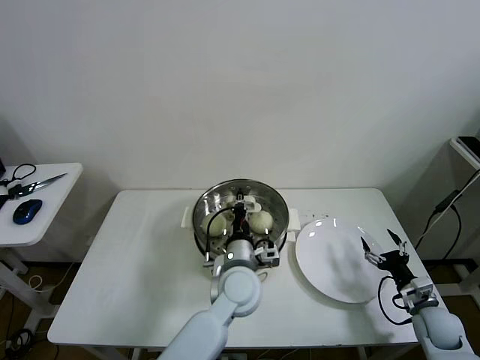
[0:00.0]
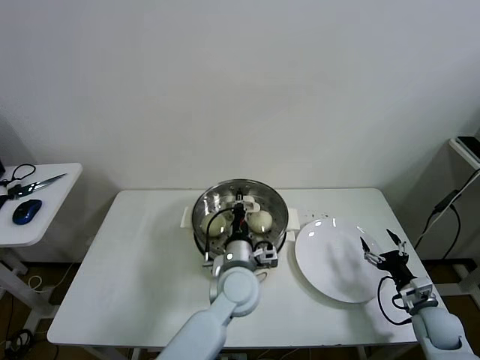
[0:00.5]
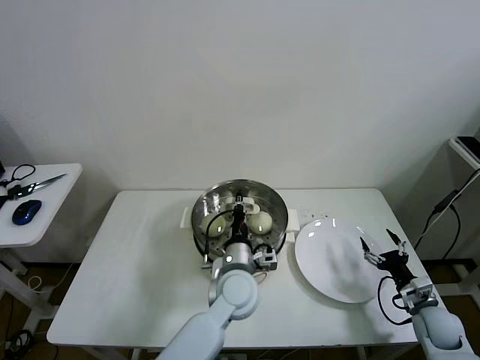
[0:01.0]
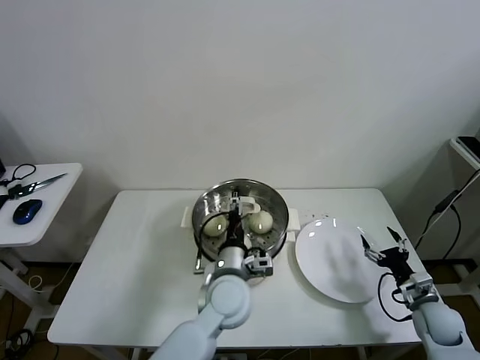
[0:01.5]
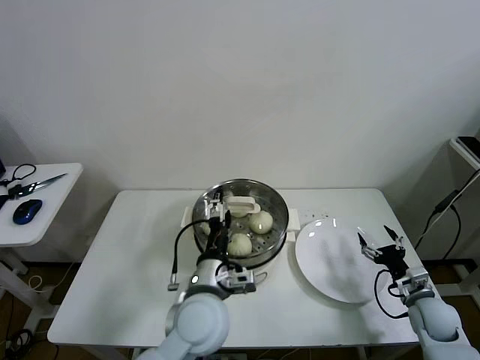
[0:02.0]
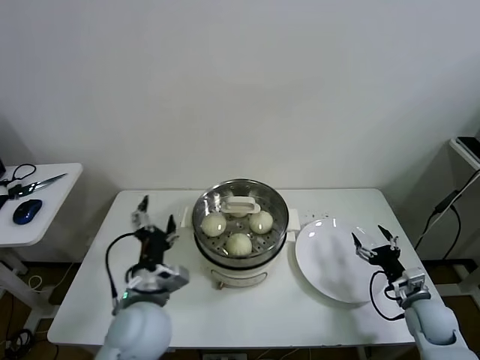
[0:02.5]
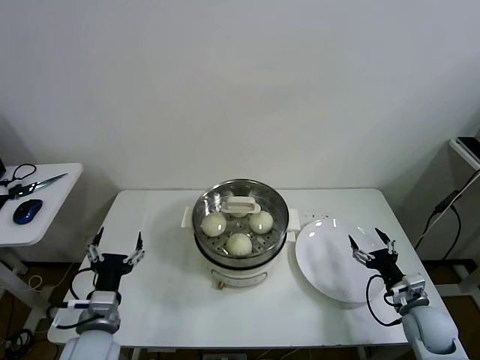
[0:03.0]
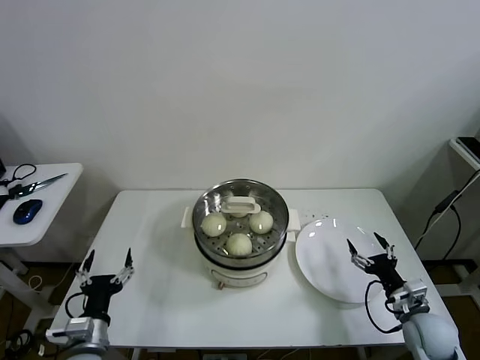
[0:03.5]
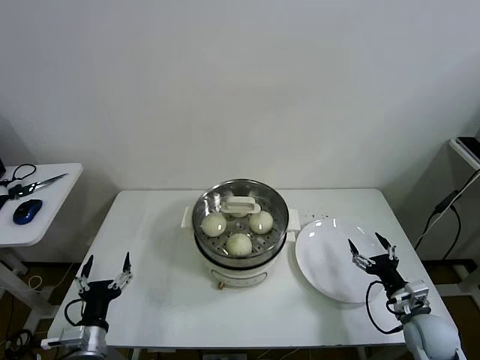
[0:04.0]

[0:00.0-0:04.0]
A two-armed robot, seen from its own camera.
Task of the whole recording: take steamed baozi put them in steamer then cover it.
0:00.0 to 0:02.0: The left gripper is displaced backward and to the left by about 10 cm, and opens its fingers.
0:02.0 to 0:04.0: The right gripper ends up approximately 5 cm from where it was, while the left gripper travels to the left and downward by roughly 30 cm.
